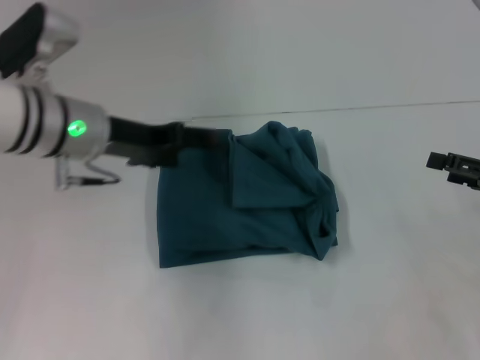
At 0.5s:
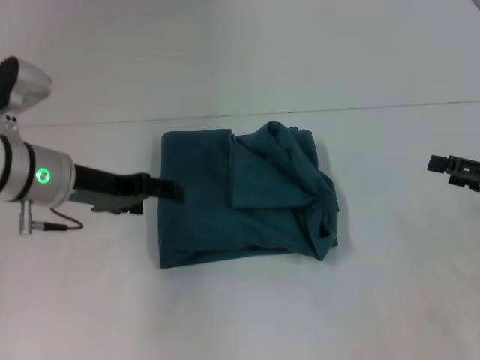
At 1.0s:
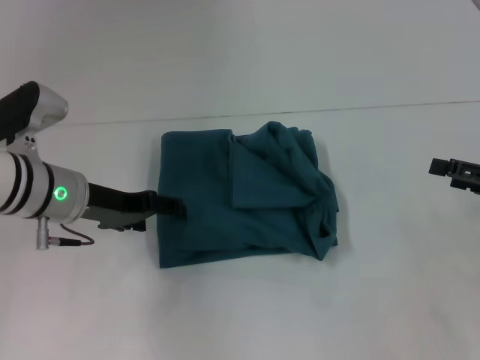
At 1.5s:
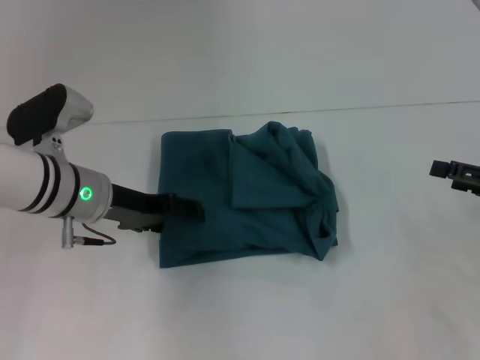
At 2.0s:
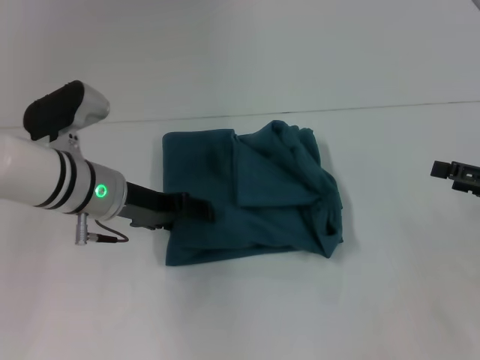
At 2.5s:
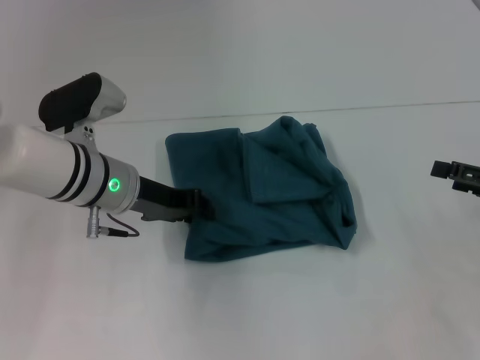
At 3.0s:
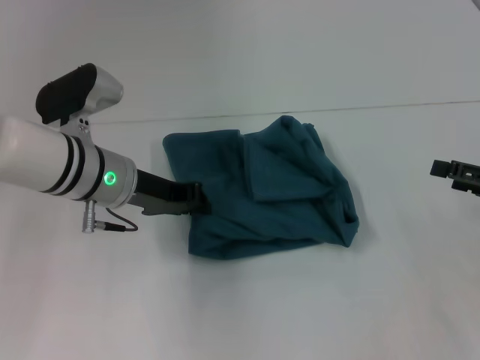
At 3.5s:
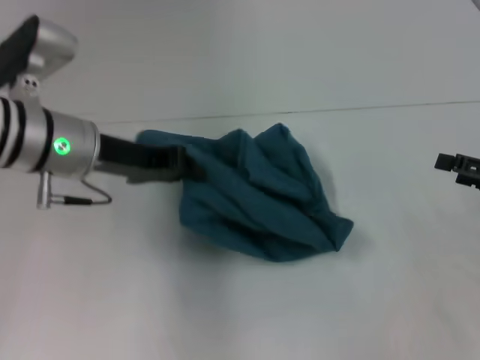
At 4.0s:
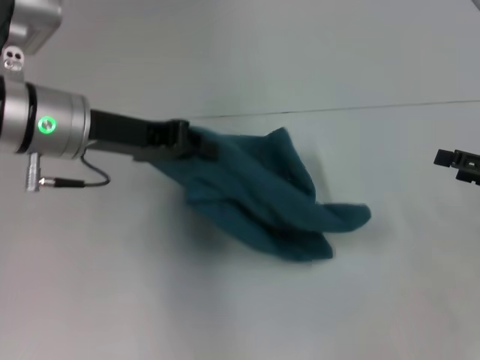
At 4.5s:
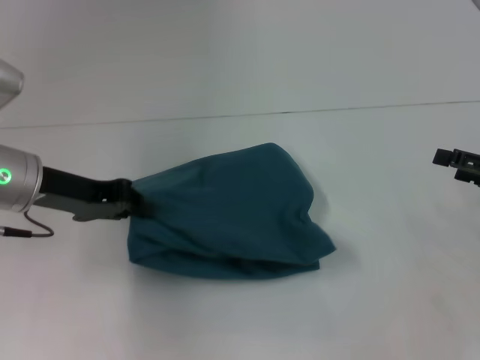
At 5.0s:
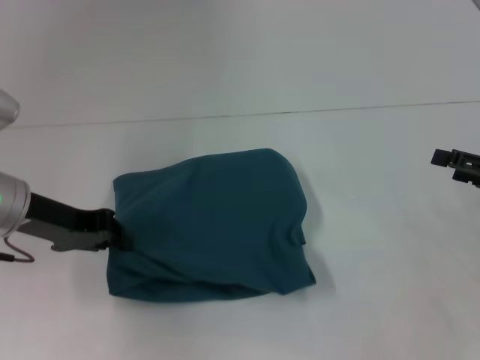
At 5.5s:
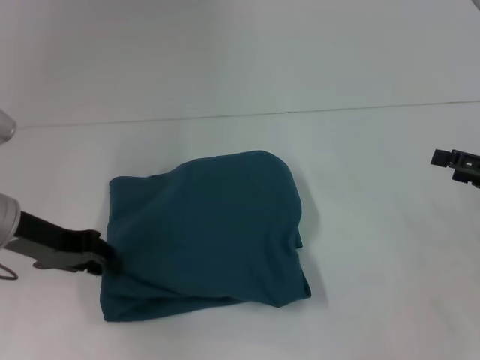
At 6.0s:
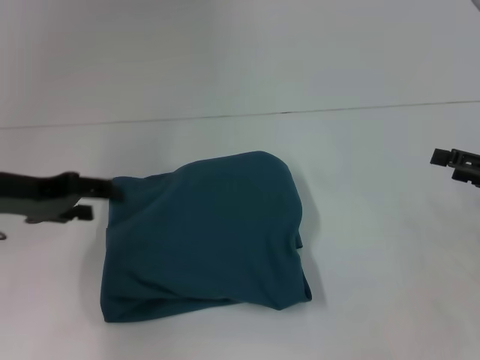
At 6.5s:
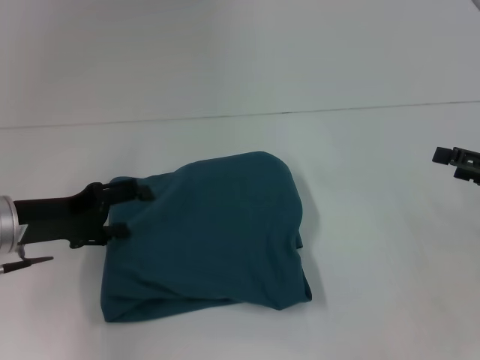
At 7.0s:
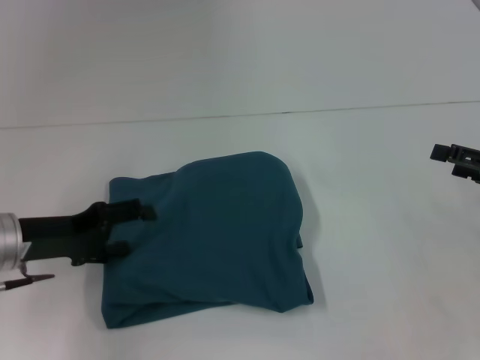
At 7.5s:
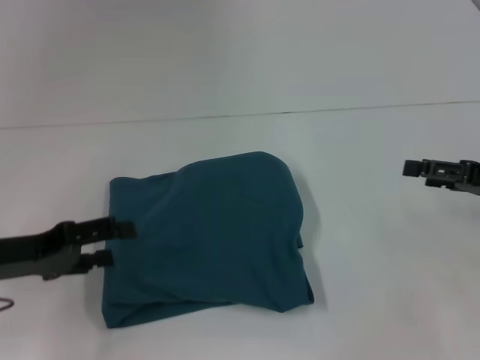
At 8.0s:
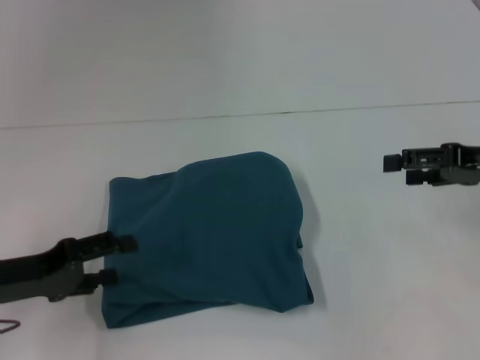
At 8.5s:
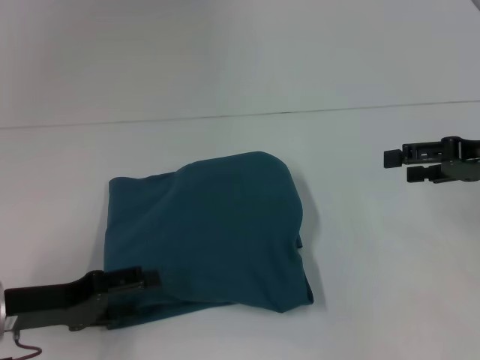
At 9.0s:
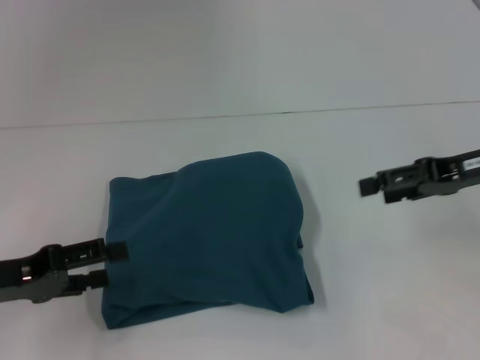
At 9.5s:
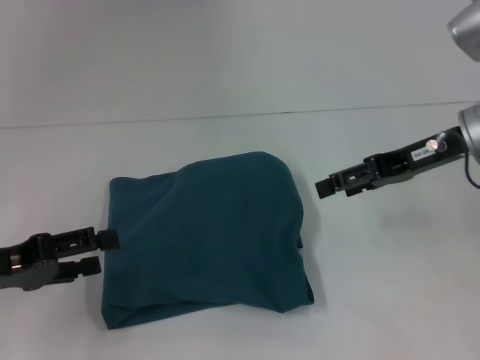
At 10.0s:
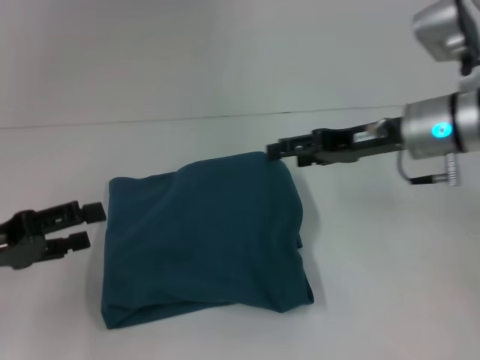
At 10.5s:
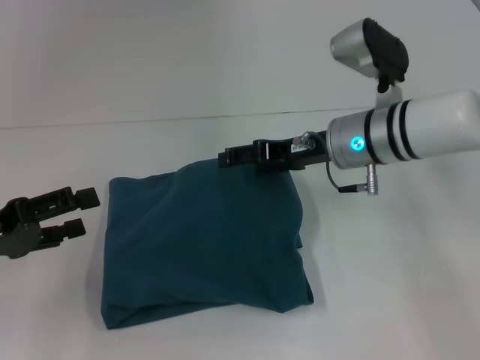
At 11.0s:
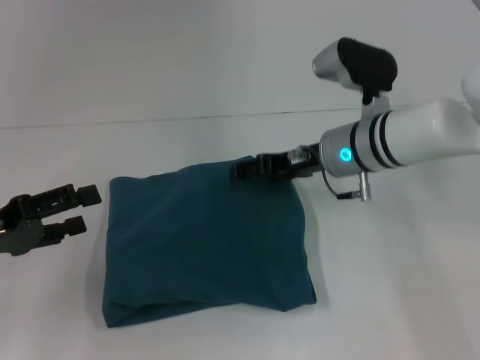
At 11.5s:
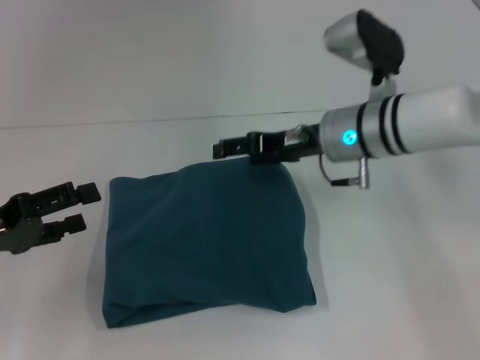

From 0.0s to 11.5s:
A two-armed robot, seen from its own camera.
From 0.0s to 2.0s: The left gripper heads downward, covering some 5 cm.
From 2.0s to 4.0s: The left gripper shifts approximately 10 cm upward, and closes its fingers.
From 4.0s to 6.0s: The left gripper shifts some 10 cm to the left, and opens its fingers.
From 6.0s to 7.5s: The left gripper travels downward and backward by roughly 10 cm, and opens up.
From 7.5s to 9.5s: The right gripper goes some 15 cm to the left, upward and forward.
From 9.5s to 11.5s: The right gripper travels to the left by approximately 10 cm.

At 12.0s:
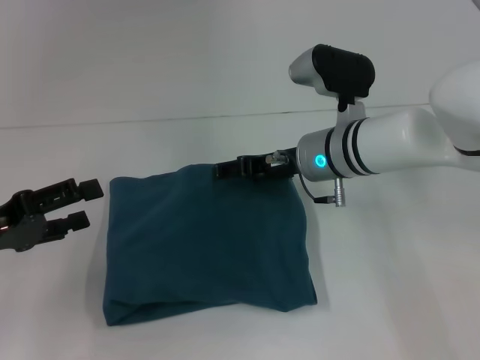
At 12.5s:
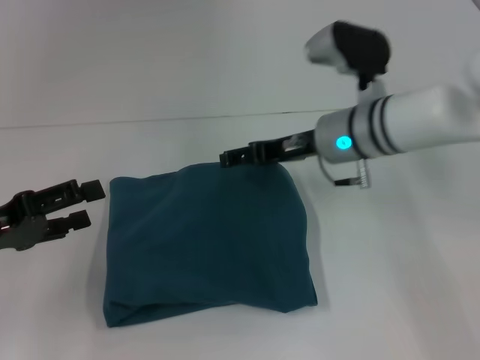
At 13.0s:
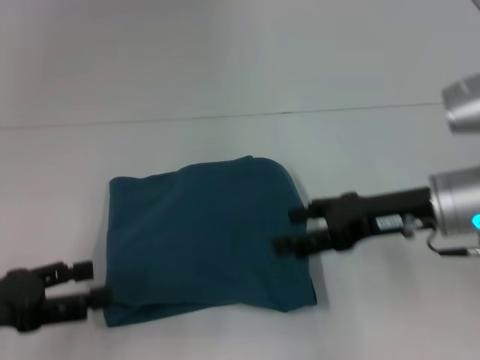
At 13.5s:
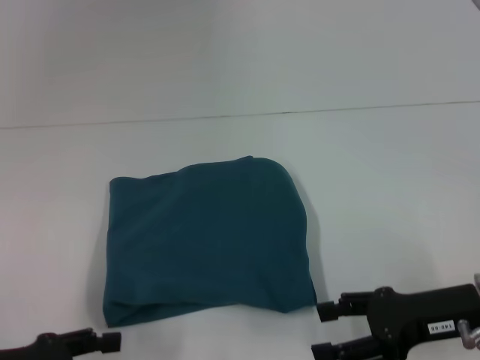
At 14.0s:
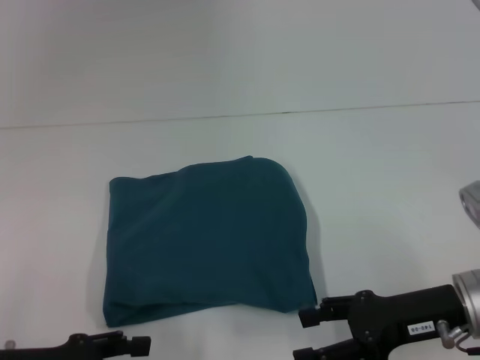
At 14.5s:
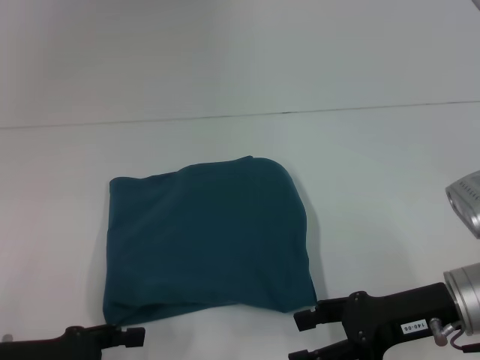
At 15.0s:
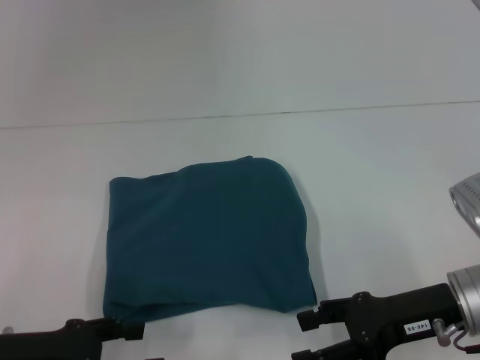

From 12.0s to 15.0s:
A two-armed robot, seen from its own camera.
From 12.0s to 13.5s: The right gripper shifts roughly 20 cm backward and to the right. Meanwhile the left gripper is displaced backward by roughly 10 cm.
From 13.5s to 15.0s: There are only small adjustments of the grippers.
